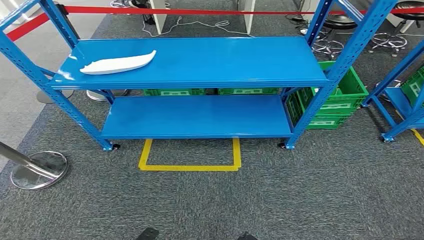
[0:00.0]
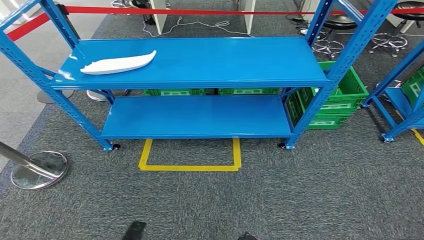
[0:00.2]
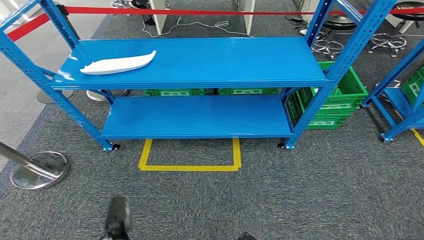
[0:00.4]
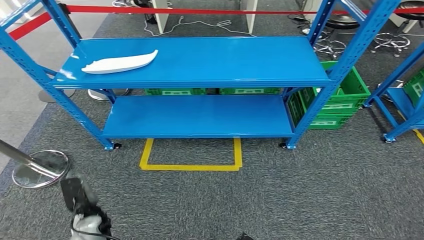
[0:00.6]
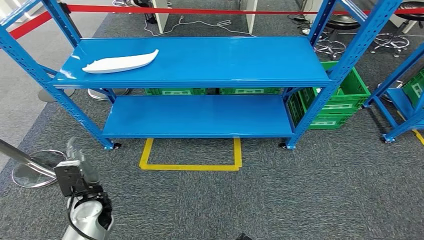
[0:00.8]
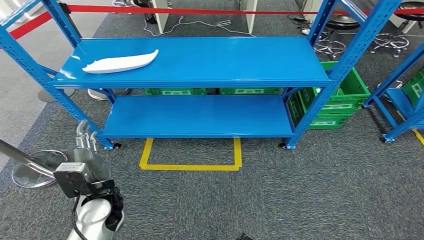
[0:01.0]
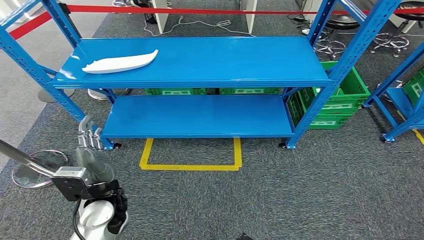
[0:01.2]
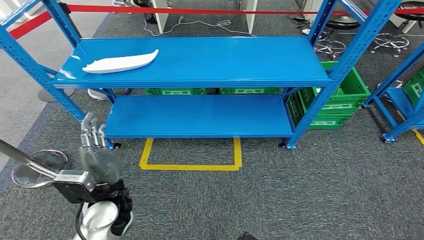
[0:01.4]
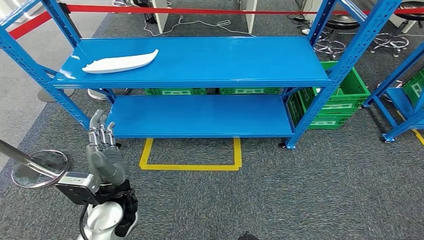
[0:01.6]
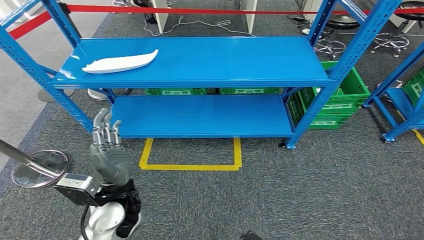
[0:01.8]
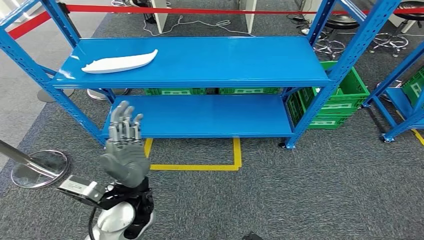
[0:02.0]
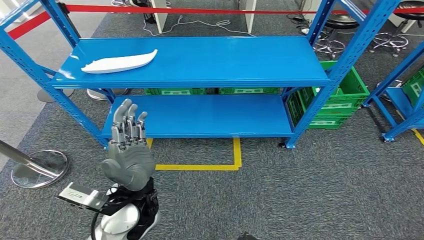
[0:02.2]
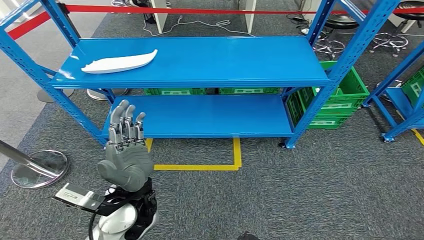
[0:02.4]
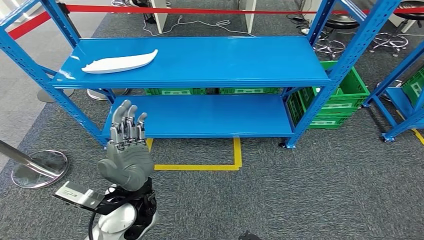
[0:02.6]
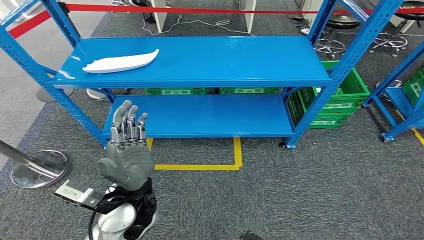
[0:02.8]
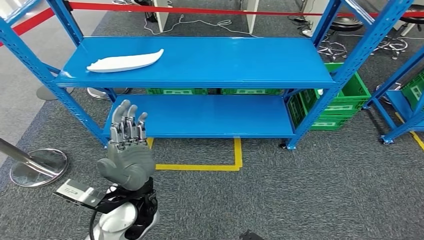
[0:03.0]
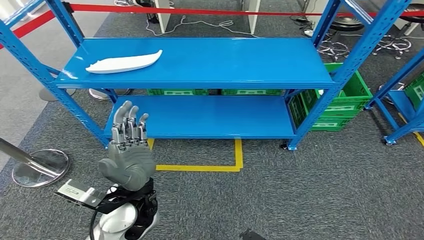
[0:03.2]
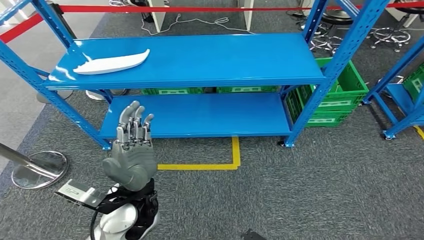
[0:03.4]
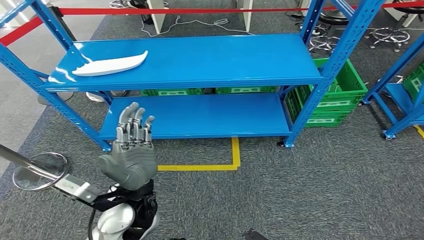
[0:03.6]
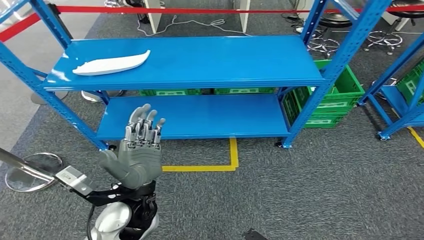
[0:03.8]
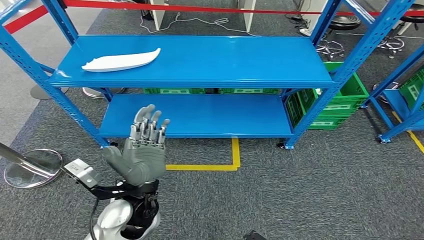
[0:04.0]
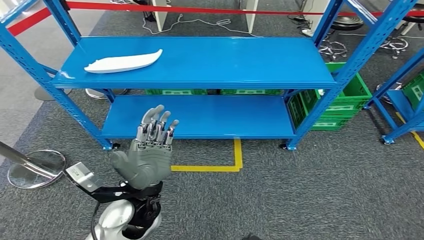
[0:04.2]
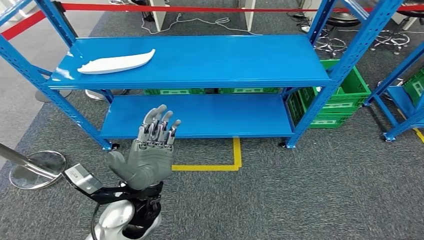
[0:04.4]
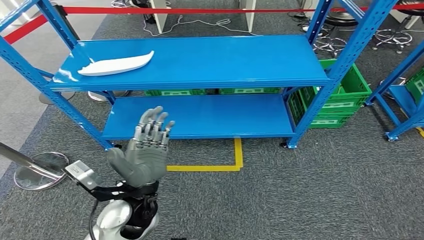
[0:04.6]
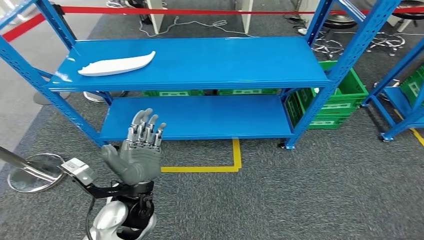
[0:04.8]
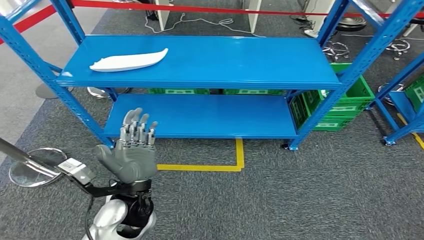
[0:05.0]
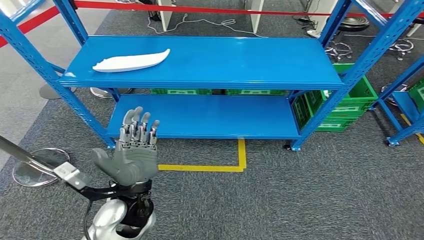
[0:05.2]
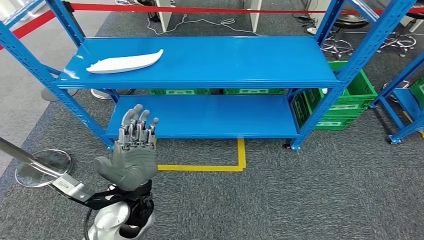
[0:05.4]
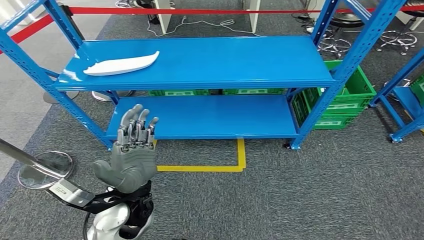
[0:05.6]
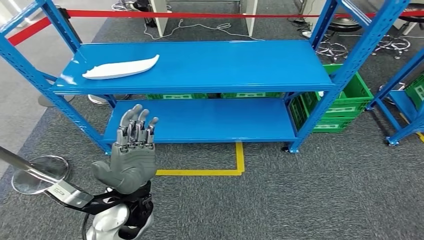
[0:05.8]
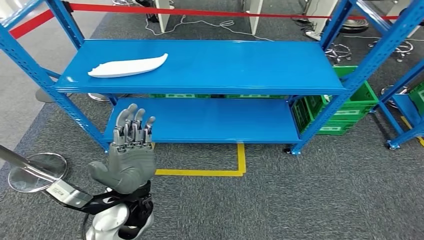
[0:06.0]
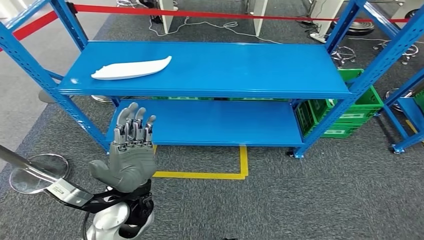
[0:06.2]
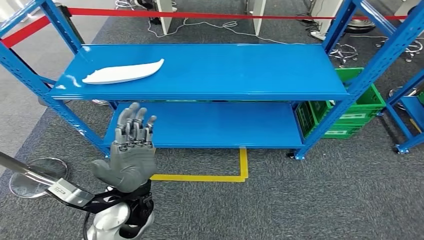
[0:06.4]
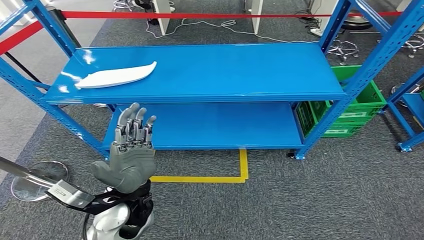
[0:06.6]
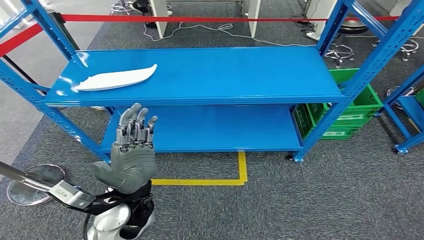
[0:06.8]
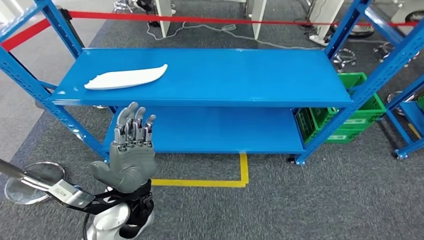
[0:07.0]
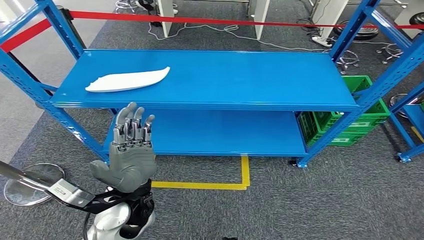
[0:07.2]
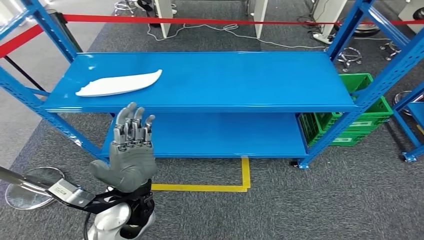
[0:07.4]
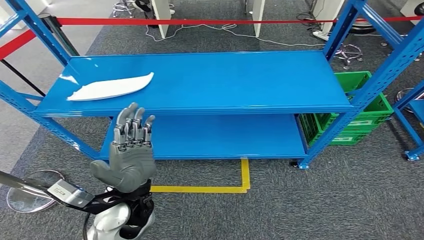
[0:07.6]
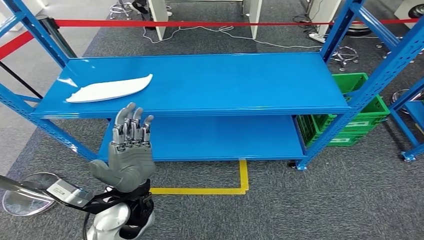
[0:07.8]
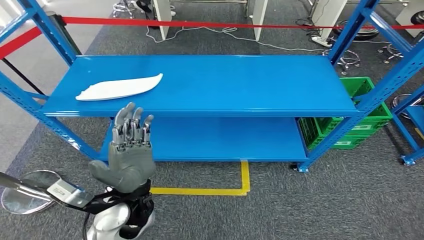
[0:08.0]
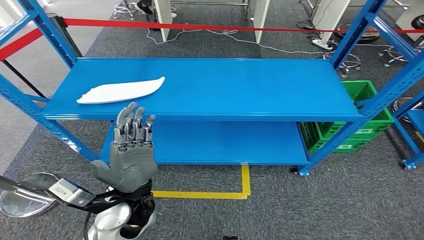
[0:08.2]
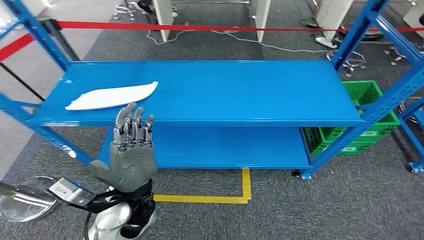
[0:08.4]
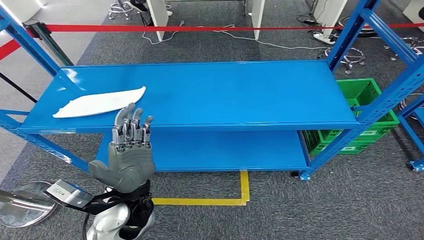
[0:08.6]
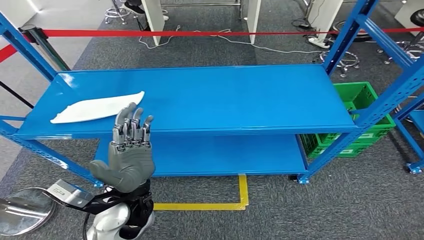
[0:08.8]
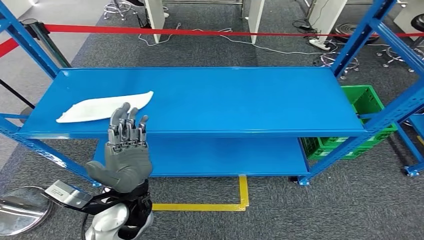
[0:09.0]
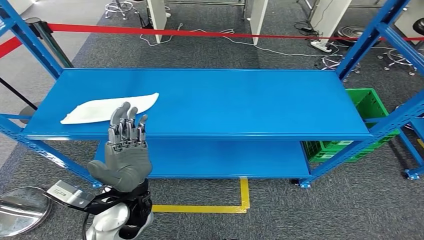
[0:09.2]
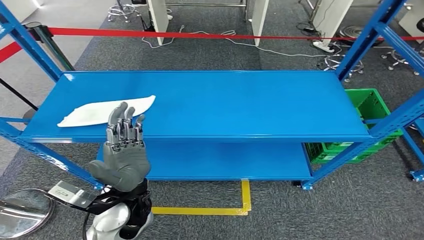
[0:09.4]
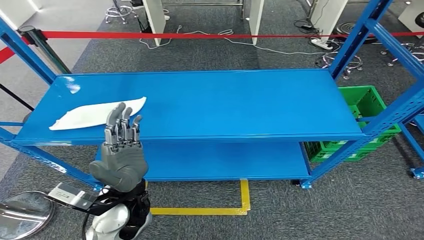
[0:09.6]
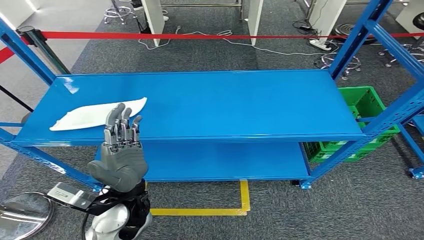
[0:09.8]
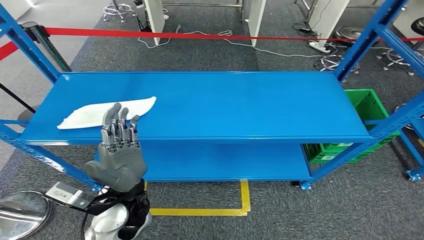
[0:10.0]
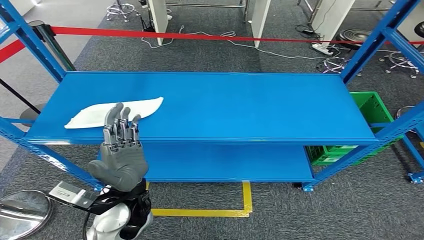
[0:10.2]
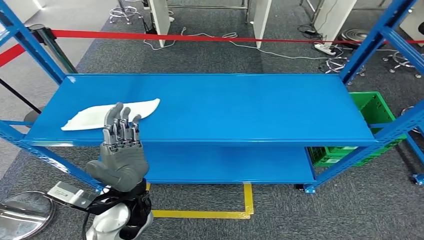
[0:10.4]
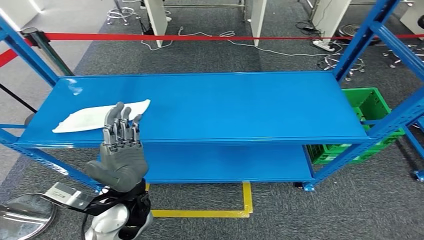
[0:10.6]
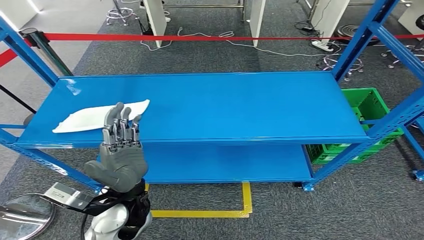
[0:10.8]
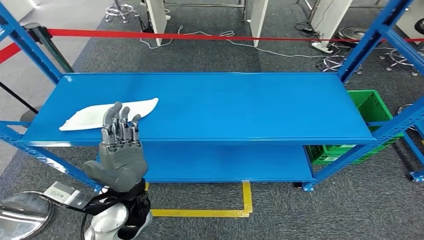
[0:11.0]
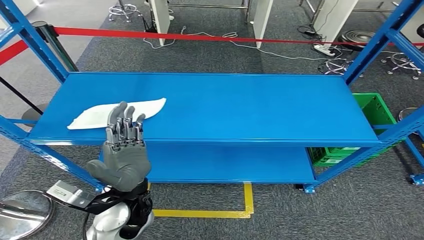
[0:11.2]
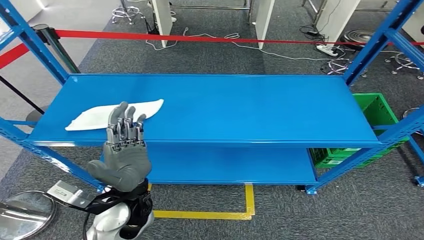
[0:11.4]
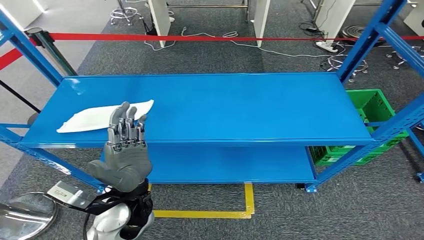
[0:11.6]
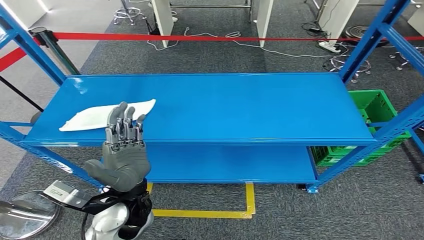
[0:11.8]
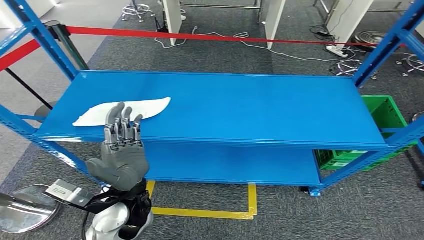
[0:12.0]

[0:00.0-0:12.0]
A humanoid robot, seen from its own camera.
1.6 to 3.0 s: The left hand moves some 5 cm.

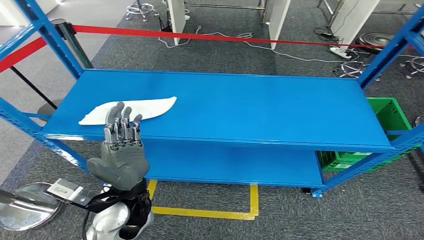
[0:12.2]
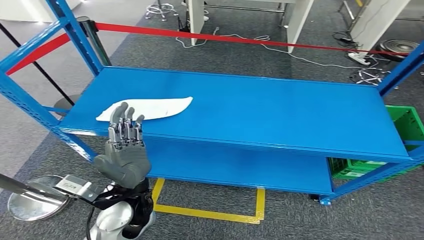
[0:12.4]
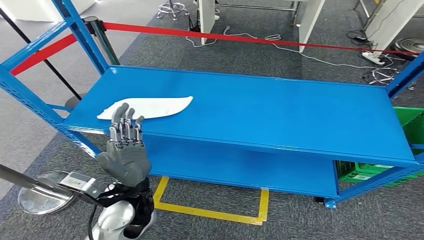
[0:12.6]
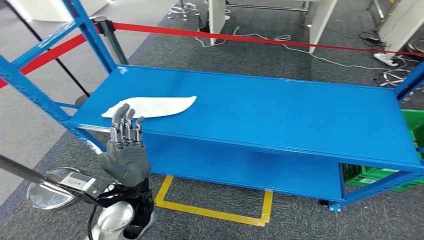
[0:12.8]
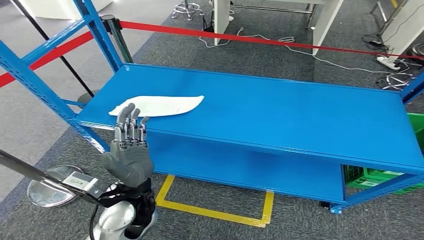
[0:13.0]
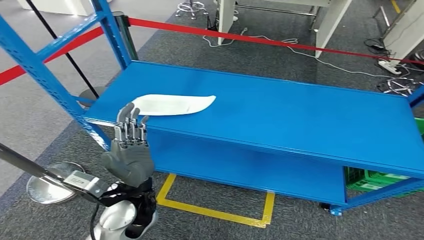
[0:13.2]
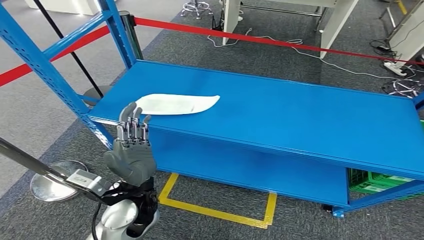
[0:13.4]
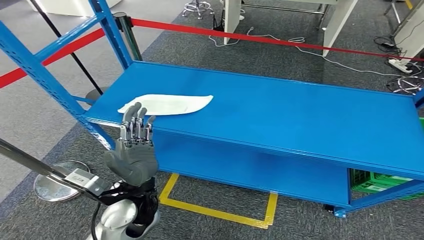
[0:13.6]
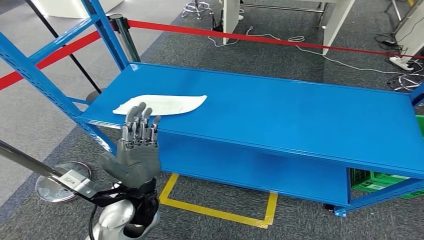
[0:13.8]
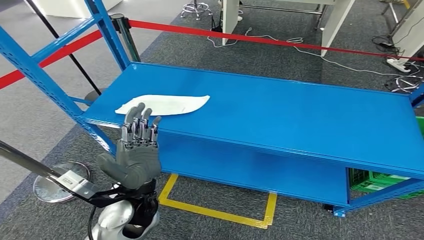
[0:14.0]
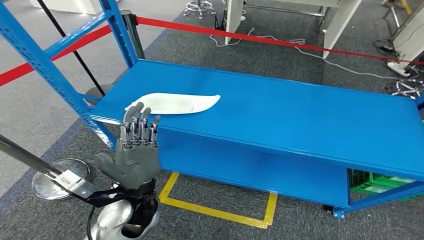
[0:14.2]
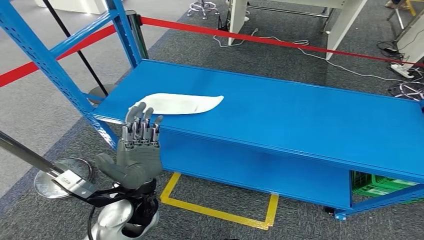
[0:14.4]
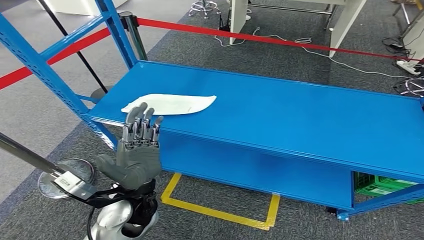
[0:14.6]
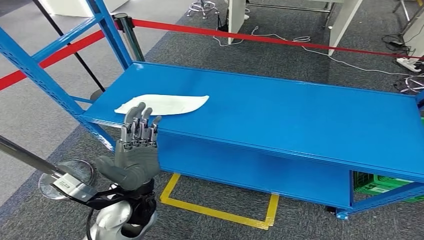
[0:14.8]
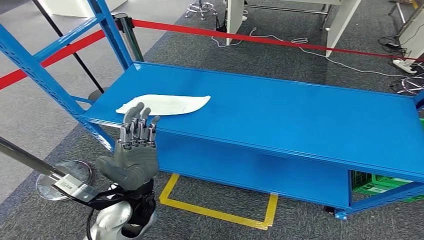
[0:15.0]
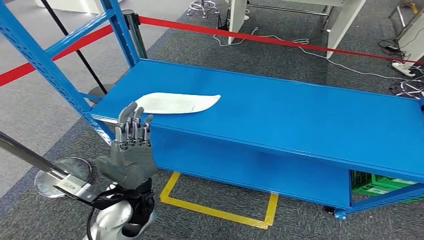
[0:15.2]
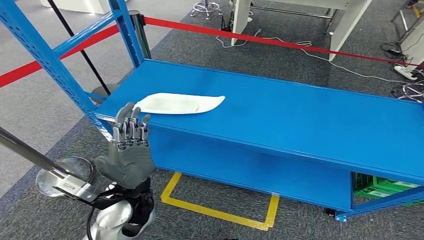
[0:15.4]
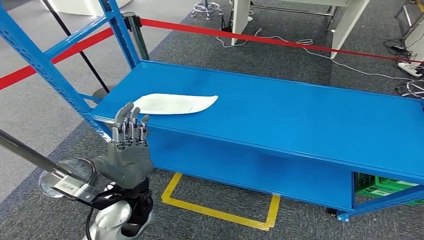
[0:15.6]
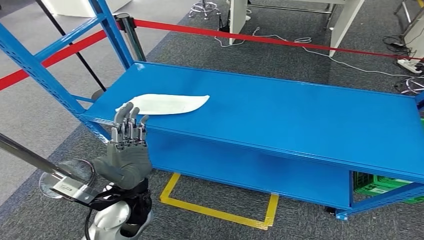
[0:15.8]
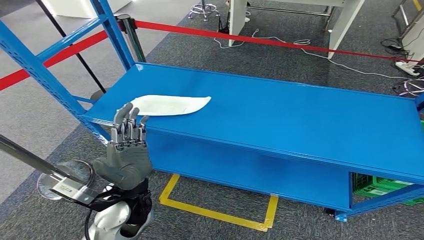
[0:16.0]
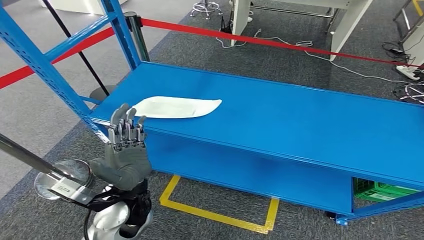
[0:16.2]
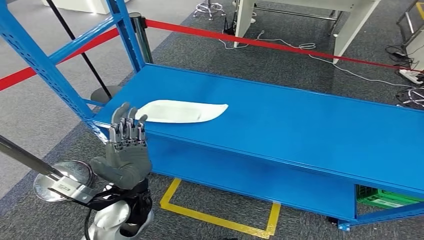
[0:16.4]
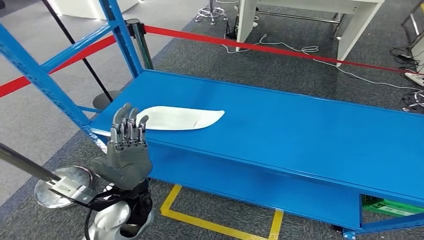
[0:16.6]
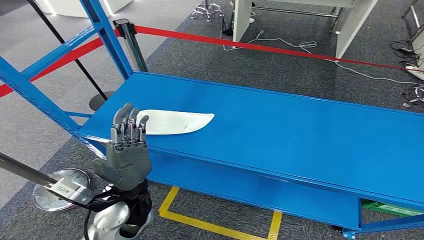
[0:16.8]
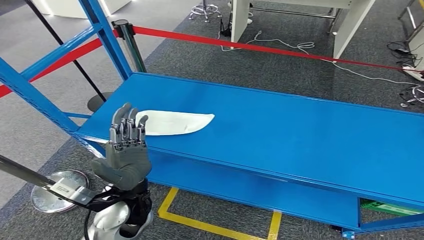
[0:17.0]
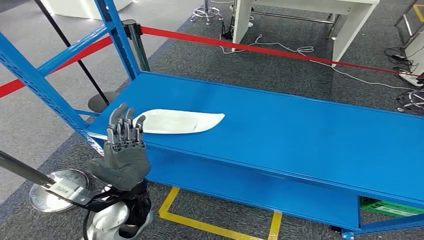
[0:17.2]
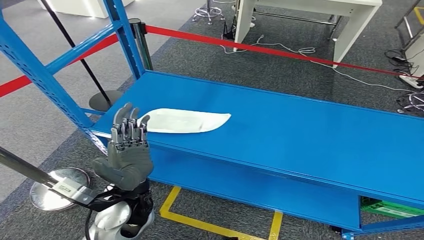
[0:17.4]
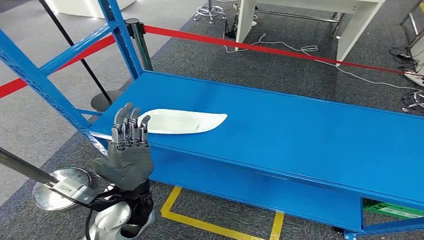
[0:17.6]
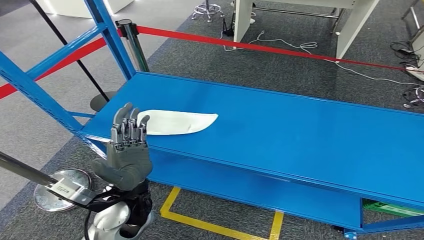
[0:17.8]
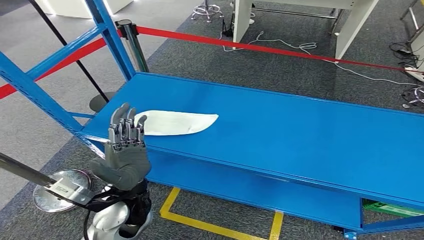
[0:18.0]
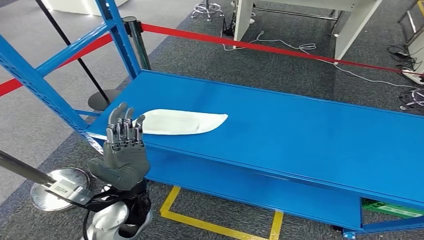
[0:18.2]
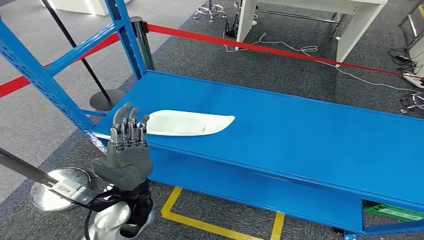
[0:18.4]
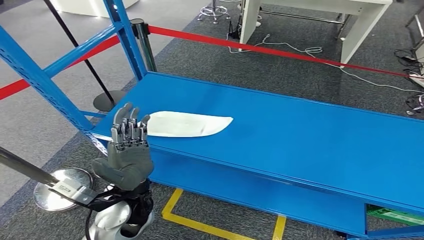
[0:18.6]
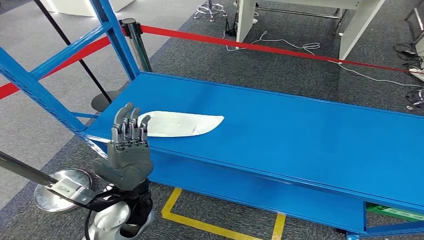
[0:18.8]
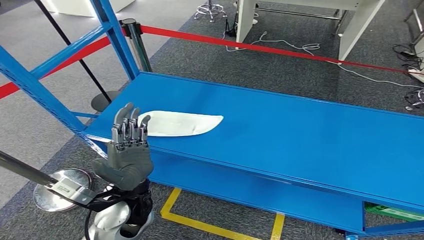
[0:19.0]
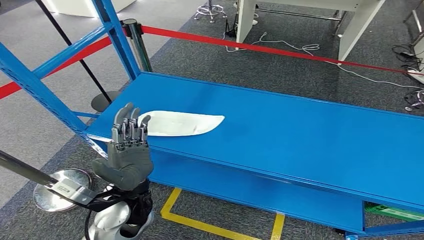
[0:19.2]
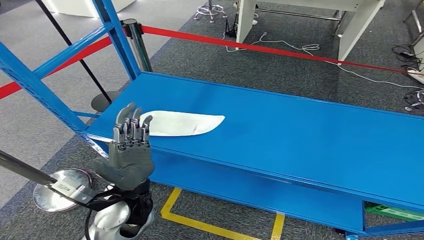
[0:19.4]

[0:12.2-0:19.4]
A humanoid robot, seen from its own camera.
13.6 to 15.0 s: The hands make only small movements.
16.6 to 18.0 s: The hands stay close to where they were, moving slightly.
18.0 to 19.4 s: The two hands keep their place.
